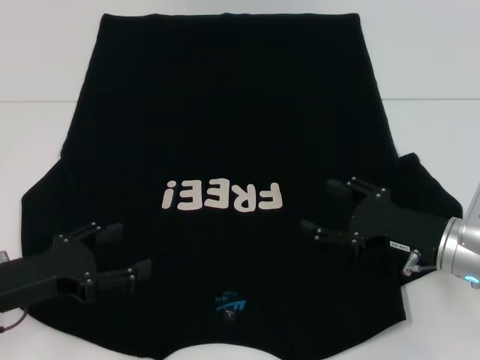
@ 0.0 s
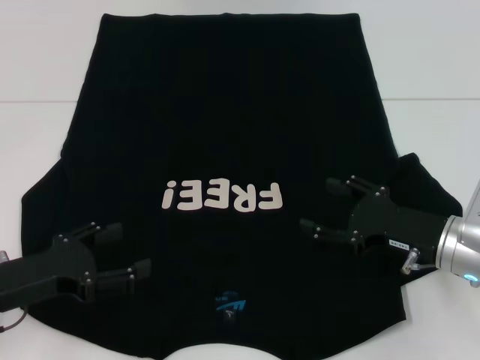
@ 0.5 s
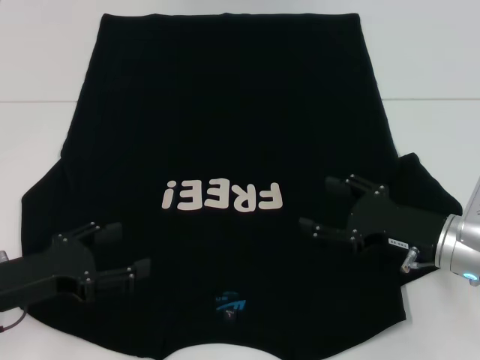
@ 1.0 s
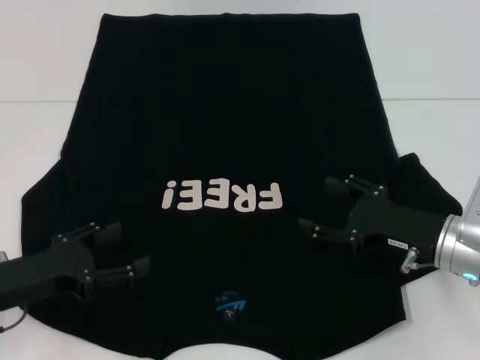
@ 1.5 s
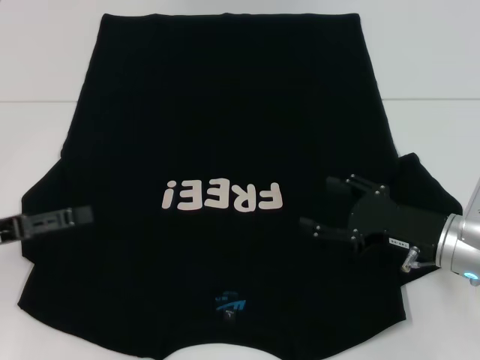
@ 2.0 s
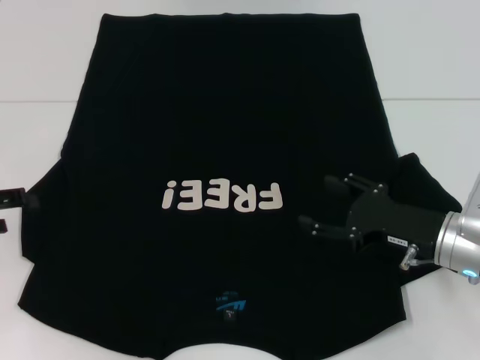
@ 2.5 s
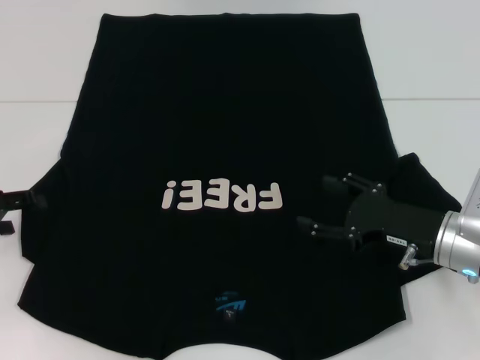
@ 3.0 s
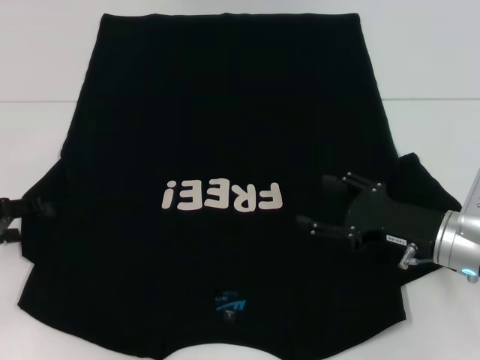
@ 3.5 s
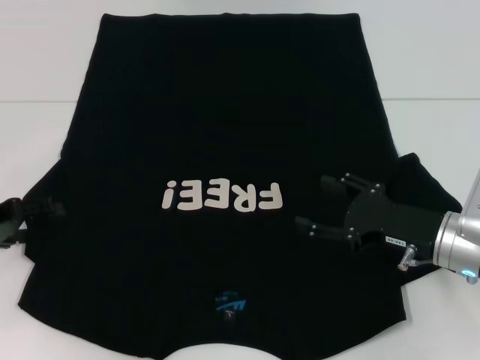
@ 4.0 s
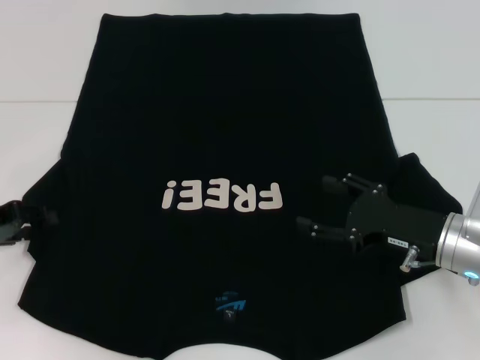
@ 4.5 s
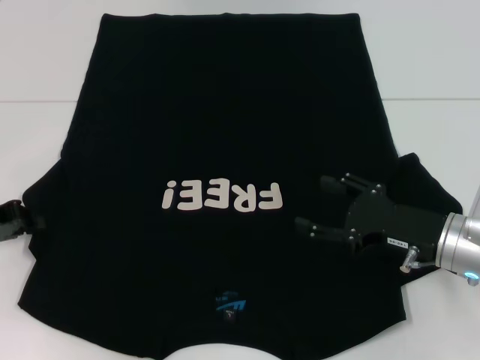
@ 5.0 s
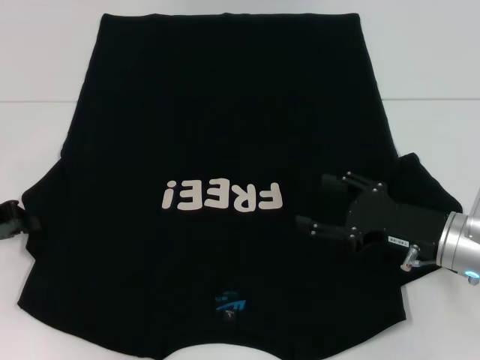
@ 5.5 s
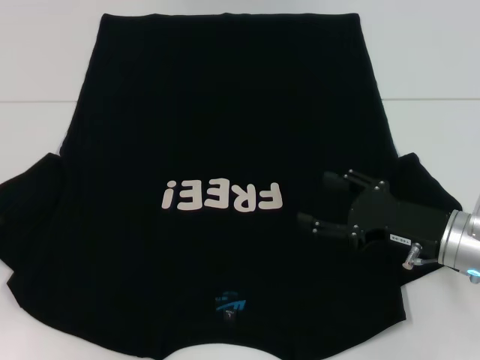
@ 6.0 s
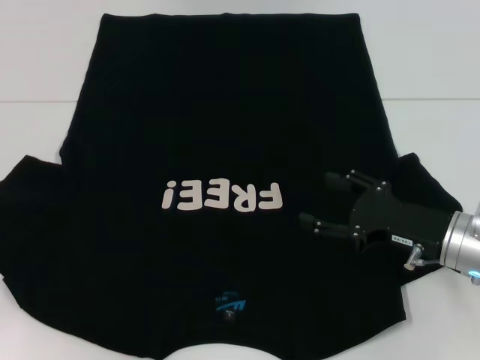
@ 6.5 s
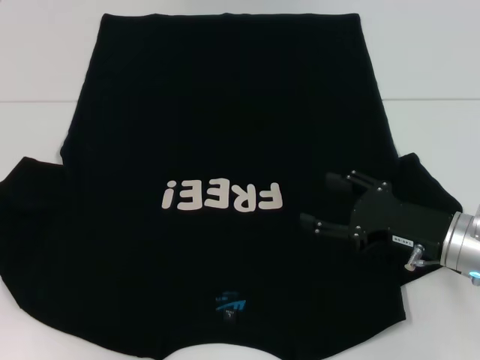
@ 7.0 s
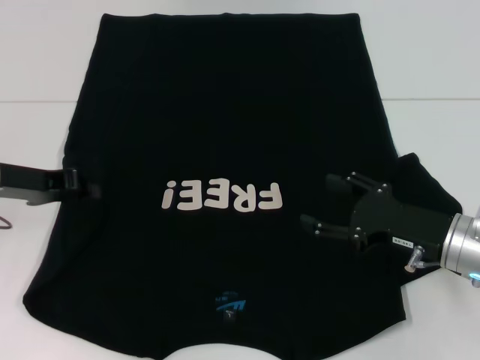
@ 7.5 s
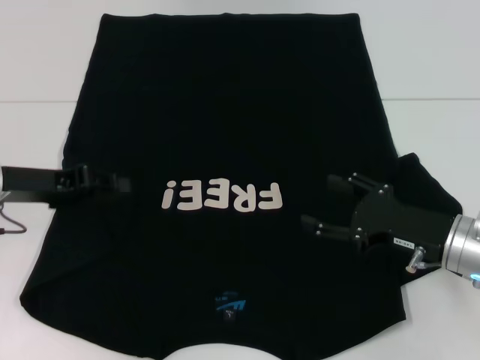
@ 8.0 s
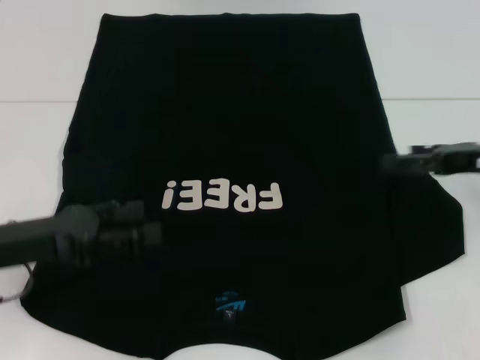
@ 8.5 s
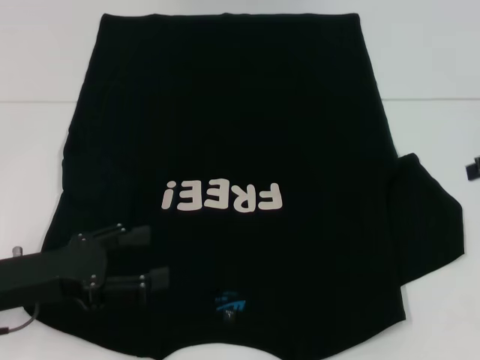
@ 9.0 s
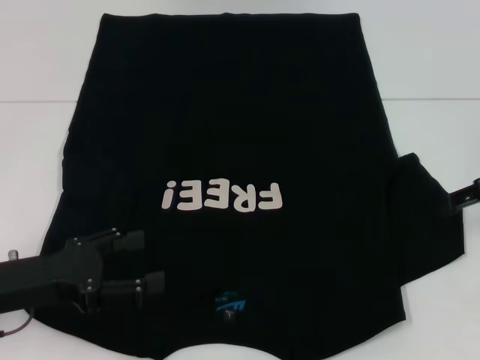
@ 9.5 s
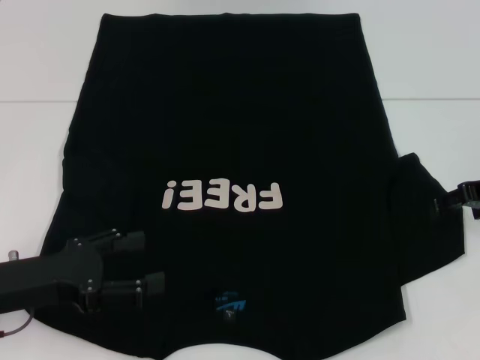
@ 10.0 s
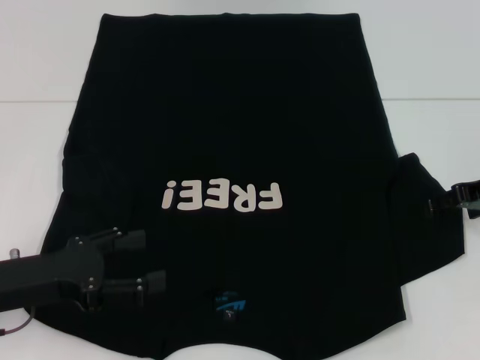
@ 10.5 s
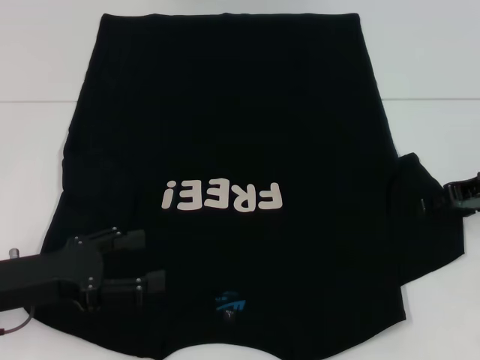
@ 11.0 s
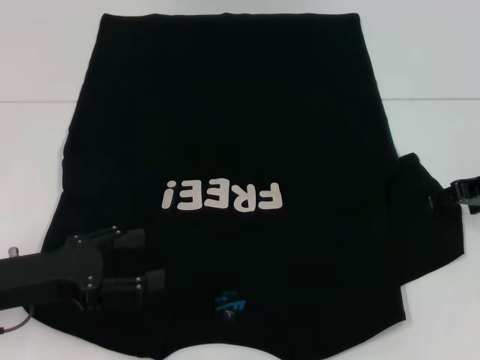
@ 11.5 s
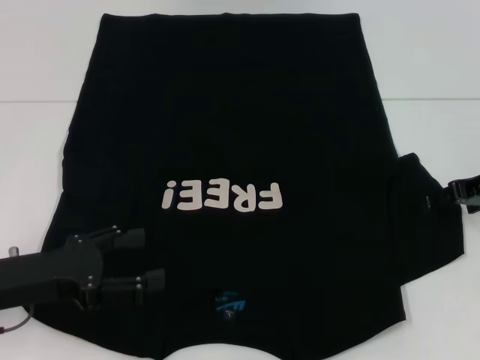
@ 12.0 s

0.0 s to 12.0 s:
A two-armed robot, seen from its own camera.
Step, 0.0 to 8.0 s: Fold the bottom left sleeve with your left hand.
0.0 to 2.0 s: The left gripper shifts some 5 cm to the left.
4.0 to 6.0 s: The left gripper closes up.
6.0 to 8.0 s: The left gripper travels to the right by some 10 cm.
8.0 to 10.0 s: The right gripper is displaced forward, upward and to the right by approximately 15 cm. Meanwhile the left gripper goes some 10 cm backward, and opens its fingers.
10.0 to 12.0 s: There are only small adjustments of the grippers.

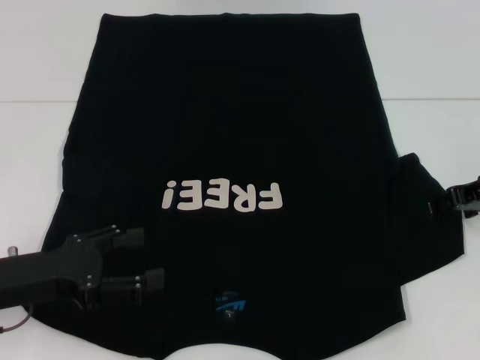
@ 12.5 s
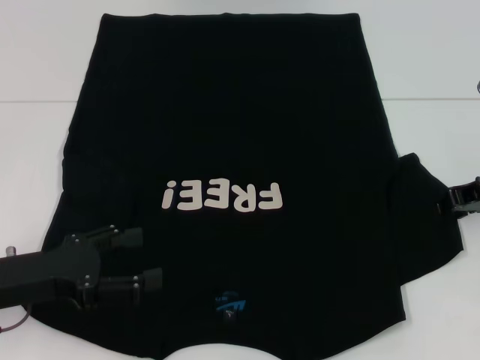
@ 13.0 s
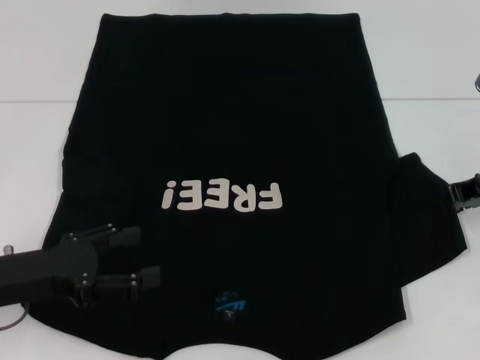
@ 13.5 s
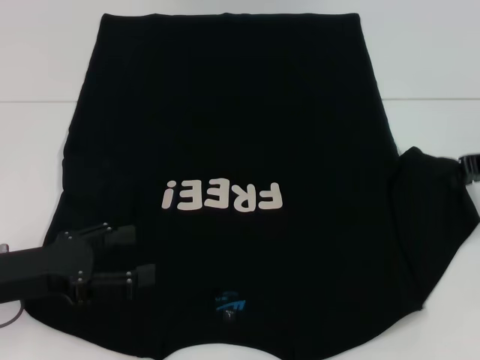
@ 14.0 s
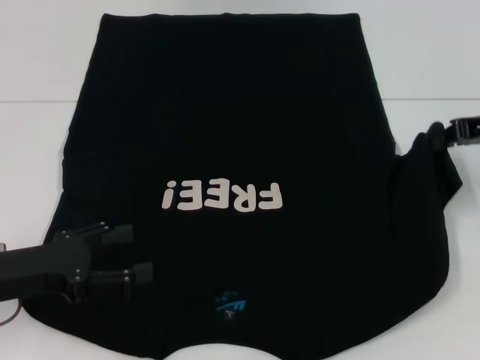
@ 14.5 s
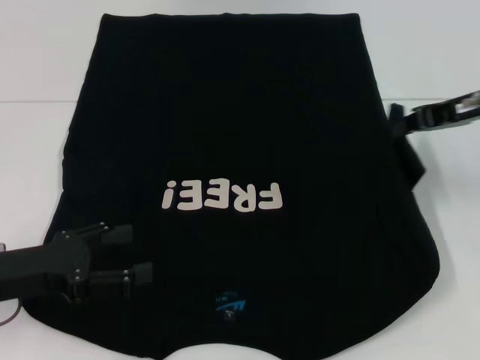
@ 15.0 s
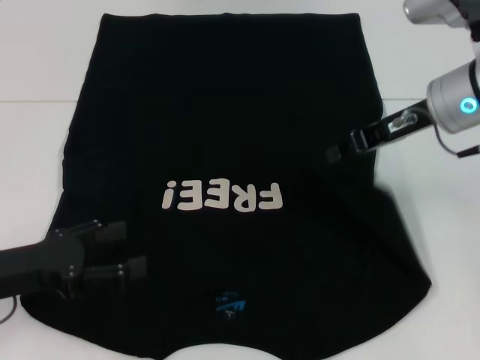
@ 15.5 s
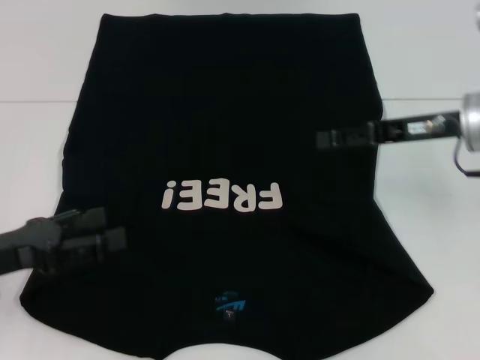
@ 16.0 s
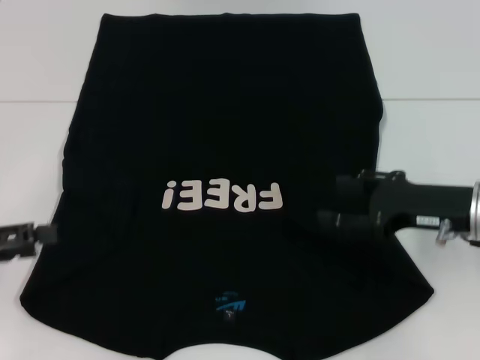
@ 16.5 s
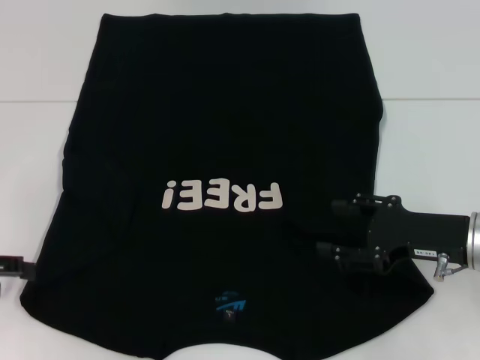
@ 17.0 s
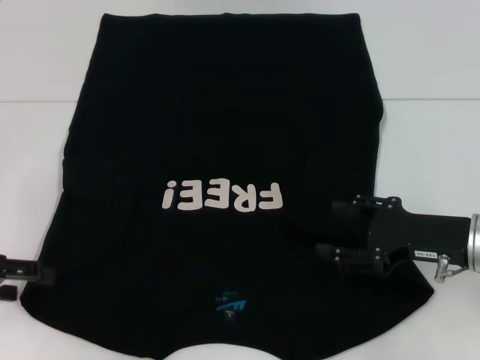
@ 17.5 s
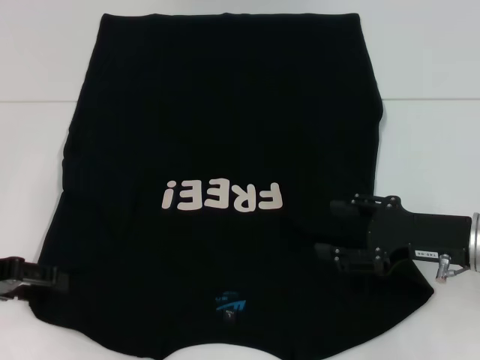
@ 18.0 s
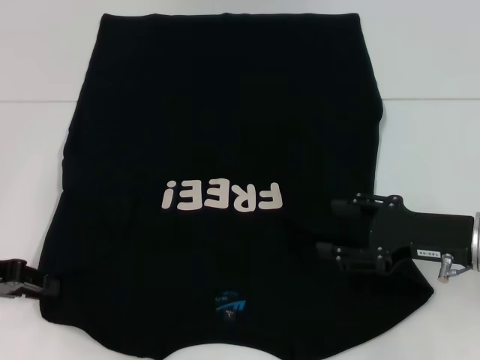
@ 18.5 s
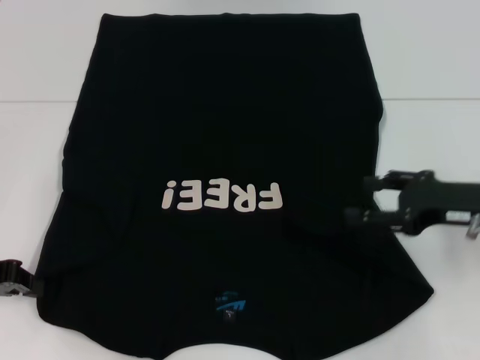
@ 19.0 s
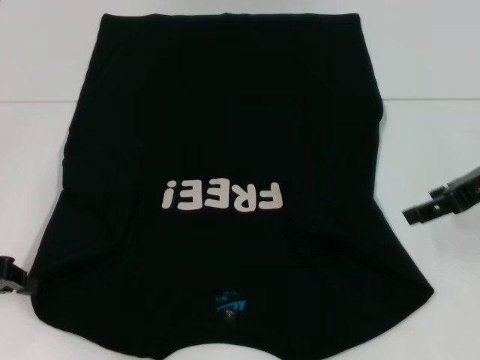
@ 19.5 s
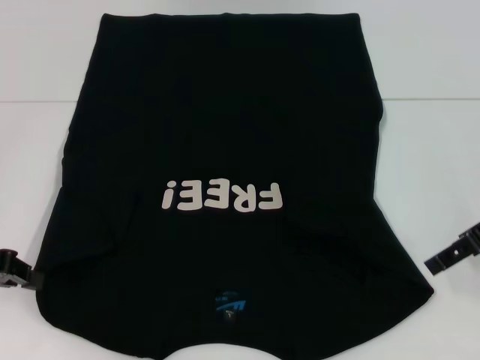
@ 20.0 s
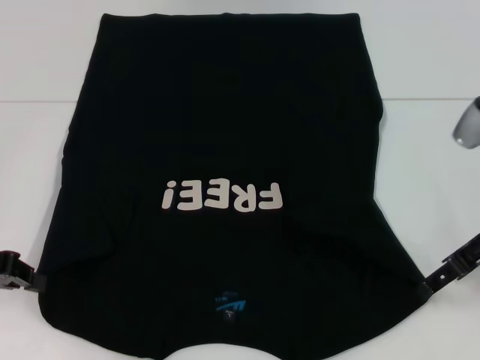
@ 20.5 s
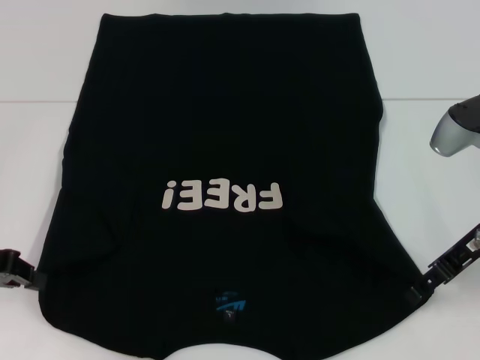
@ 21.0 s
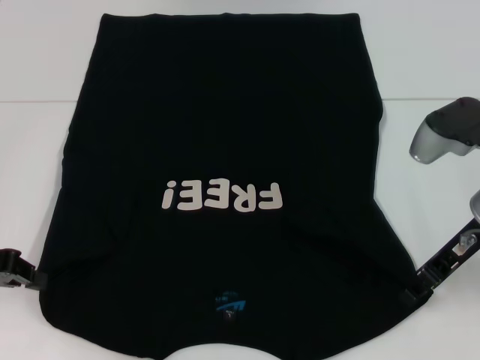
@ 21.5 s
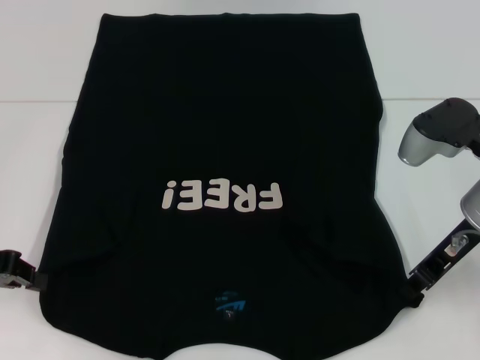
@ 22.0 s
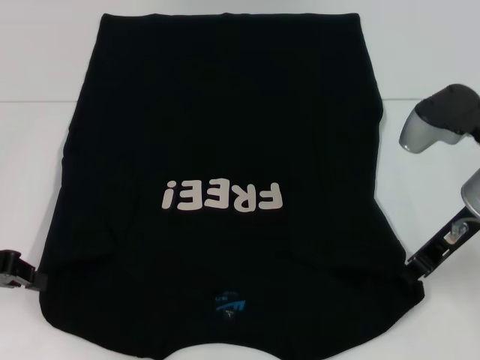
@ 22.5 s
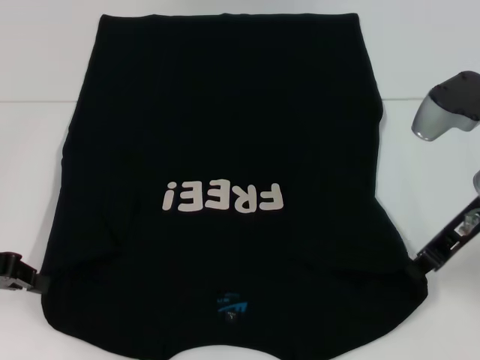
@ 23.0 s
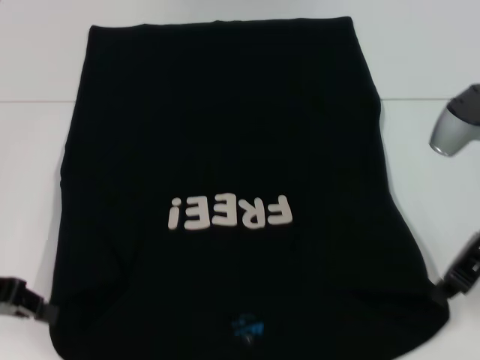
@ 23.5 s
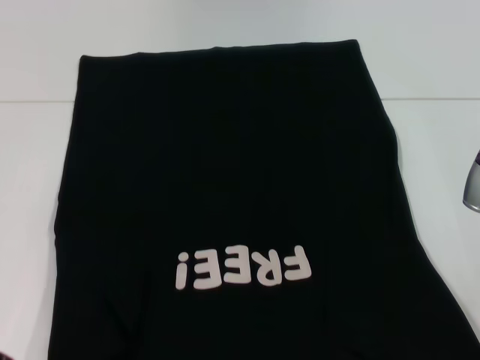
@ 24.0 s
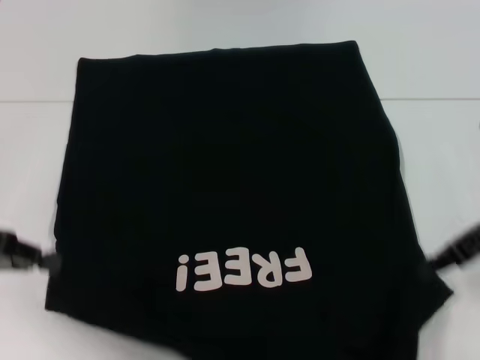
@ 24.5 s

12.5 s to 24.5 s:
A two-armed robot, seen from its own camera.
Step, 12.5 to 16.5 s: Fold the bottom right sleeve with your right hand.
Step, 17.0 to 18.5 s: Grab the bottom left corner with your left hand.
Step, 19.0 to 23.0 s: Grab the bottom right corner with your right hand.
12.5 to 14.5 s: The right gripper goes about 5 cm upward, and closes.
14.5 to 16.5 s: The left gripper heads to the left, covering approximately 10 cm; the right gripper moves downward, backward and to the left, approximately 10 cm, and opens up.
16.5 to 18.5 s: The left gripper closes up.
18.5 to 20.5 s: The right gripper goes about 5 cm upward. The left gripper closes.
20.5 to 22.5 s: The right gripper closes up.
22.5 to 24.5 s: The right gripper travels to the right by approximately 5 cm.

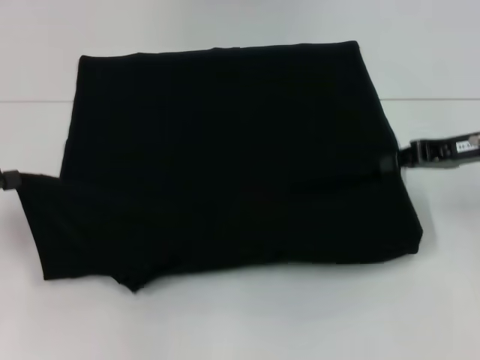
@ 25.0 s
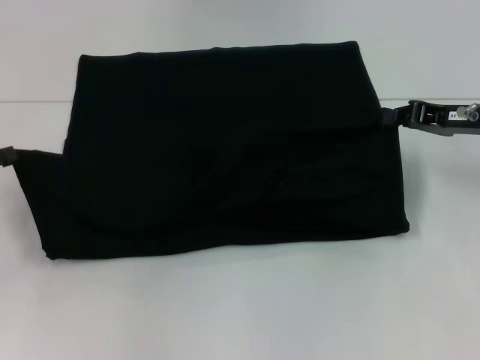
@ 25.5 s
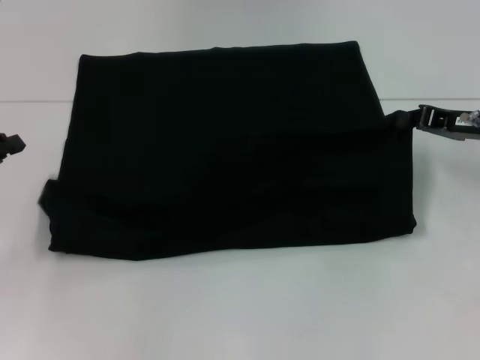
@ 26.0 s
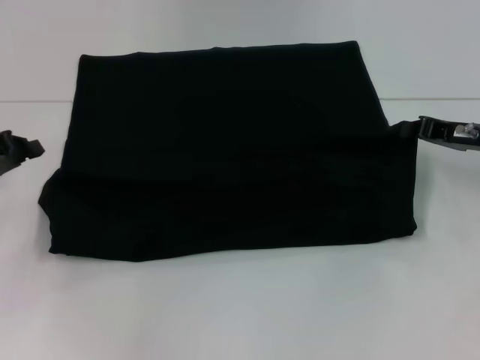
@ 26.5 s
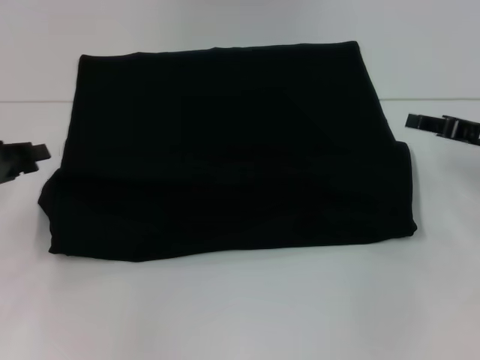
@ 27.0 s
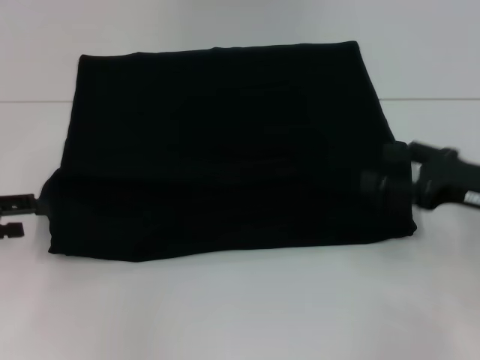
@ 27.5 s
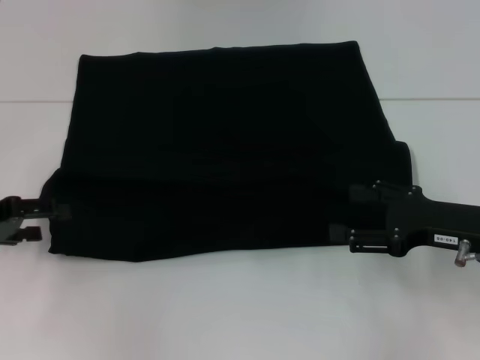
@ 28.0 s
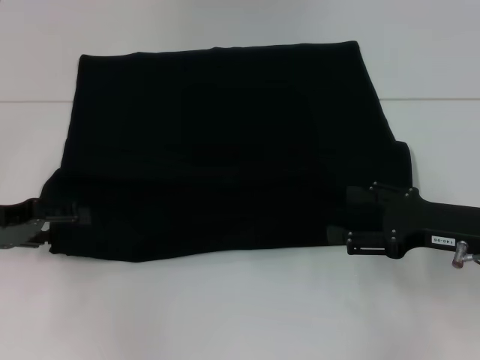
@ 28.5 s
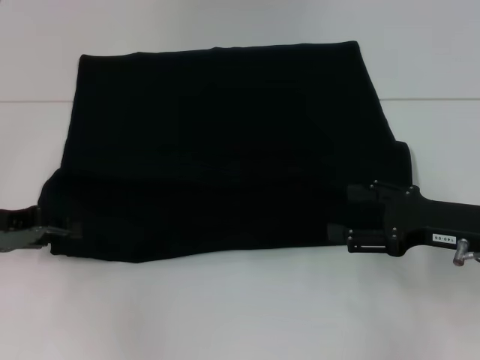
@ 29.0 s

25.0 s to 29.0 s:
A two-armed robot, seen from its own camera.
25.0 to 27.0 s: The right gripper moves about 5 cm.
27.0 to 29.0 s: The right gripper moves backward, roughly 5 cm, and opens its fingers. The left gripper opens up.
